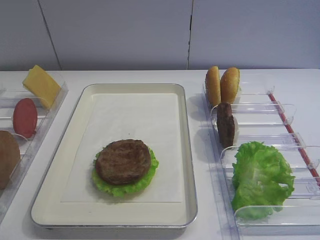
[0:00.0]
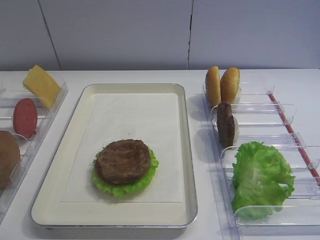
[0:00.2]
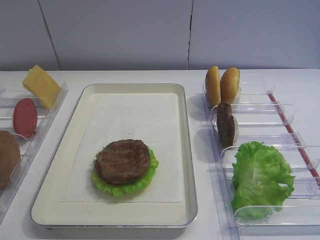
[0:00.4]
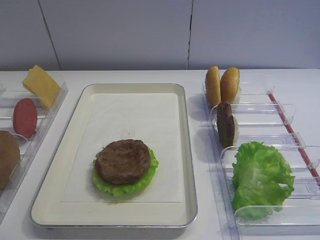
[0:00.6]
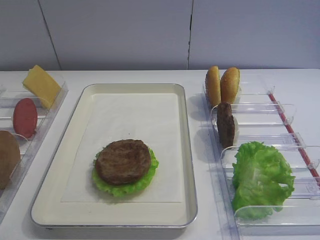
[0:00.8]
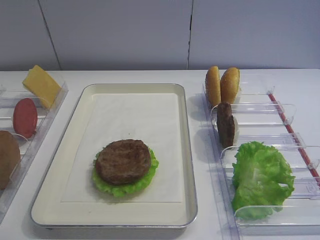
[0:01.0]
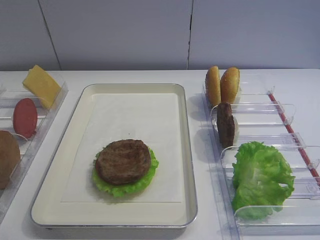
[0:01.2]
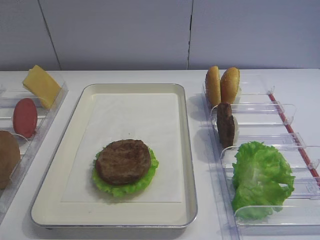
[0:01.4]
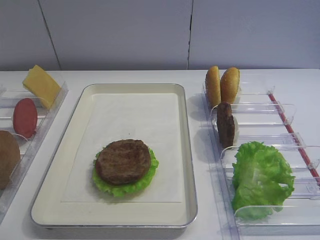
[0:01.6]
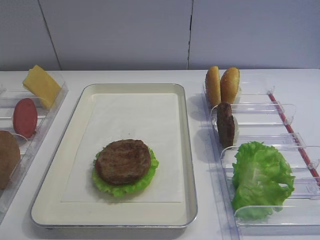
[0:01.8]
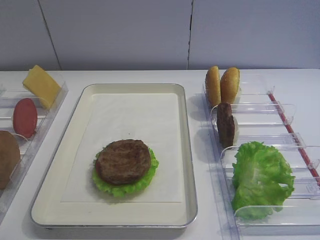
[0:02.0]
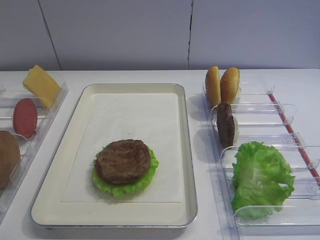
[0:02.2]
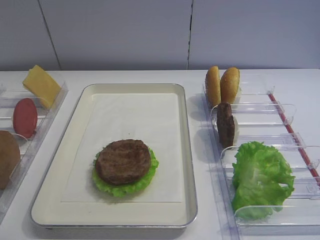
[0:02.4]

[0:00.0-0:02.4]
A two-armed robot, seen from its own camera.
1.2 to 2.4 s: Both grippers stay put.

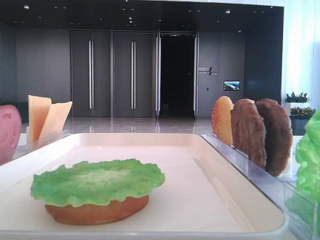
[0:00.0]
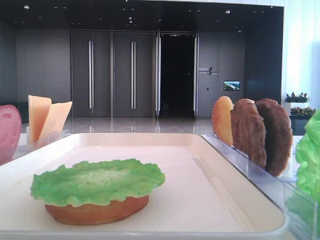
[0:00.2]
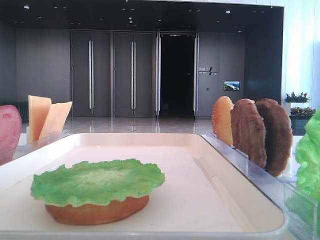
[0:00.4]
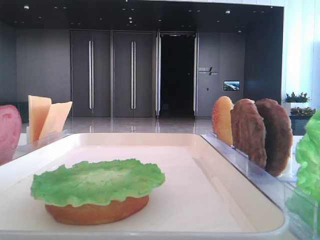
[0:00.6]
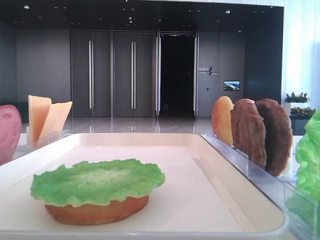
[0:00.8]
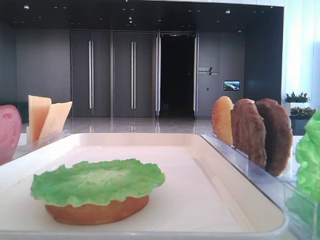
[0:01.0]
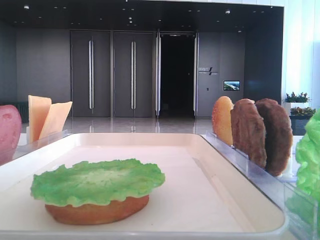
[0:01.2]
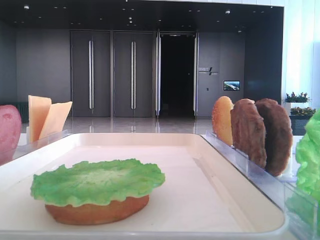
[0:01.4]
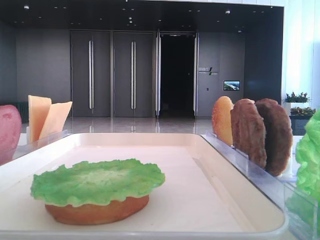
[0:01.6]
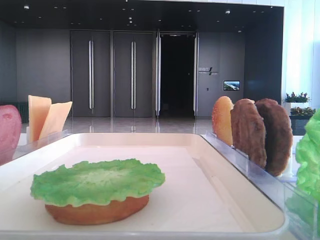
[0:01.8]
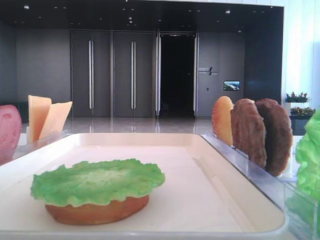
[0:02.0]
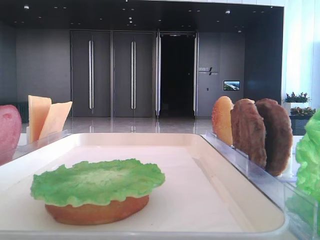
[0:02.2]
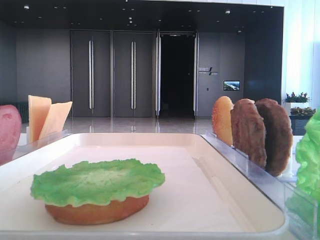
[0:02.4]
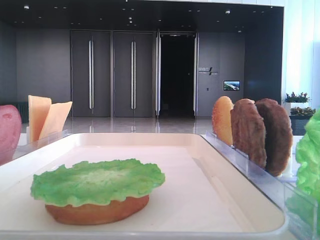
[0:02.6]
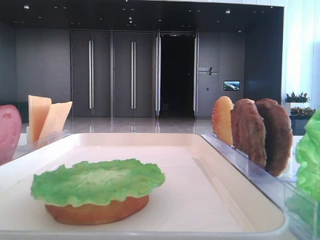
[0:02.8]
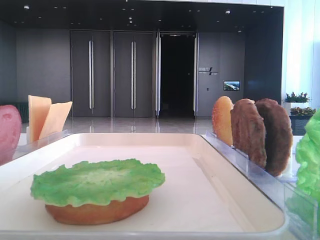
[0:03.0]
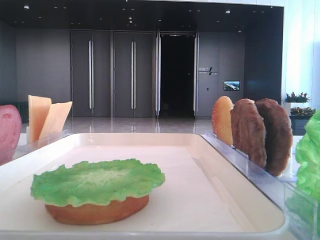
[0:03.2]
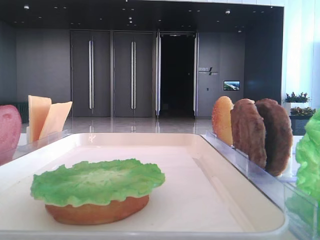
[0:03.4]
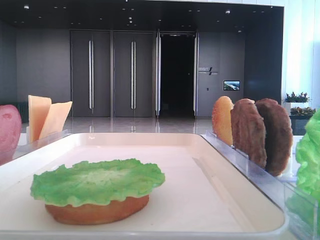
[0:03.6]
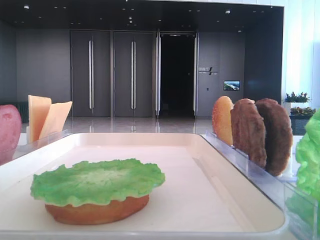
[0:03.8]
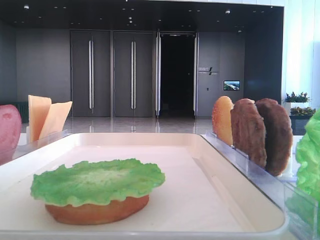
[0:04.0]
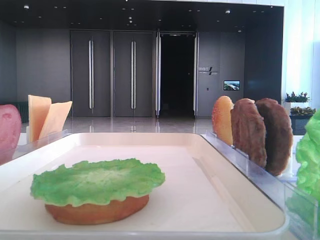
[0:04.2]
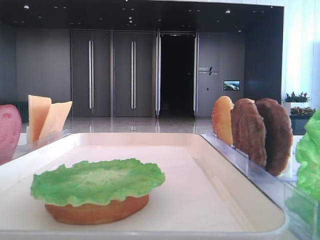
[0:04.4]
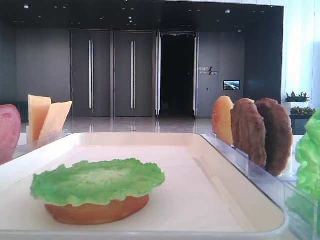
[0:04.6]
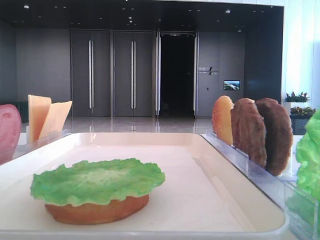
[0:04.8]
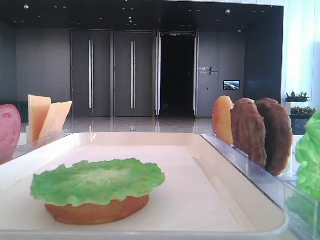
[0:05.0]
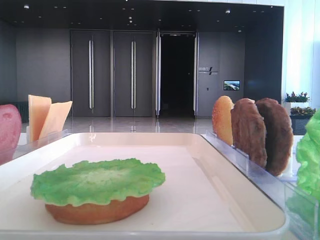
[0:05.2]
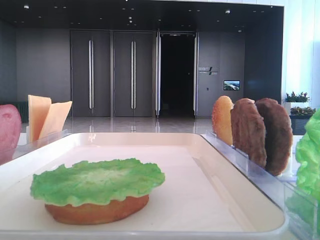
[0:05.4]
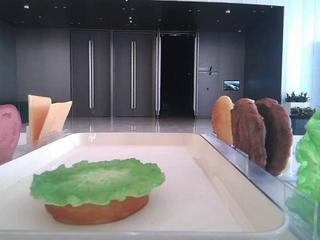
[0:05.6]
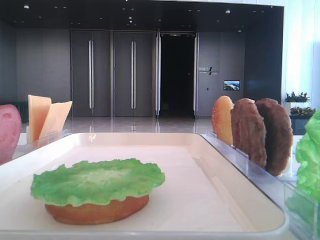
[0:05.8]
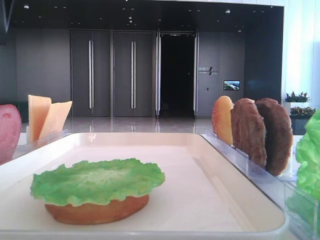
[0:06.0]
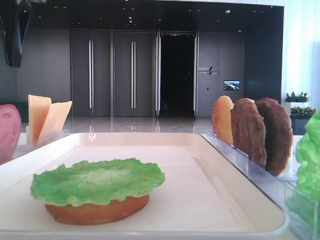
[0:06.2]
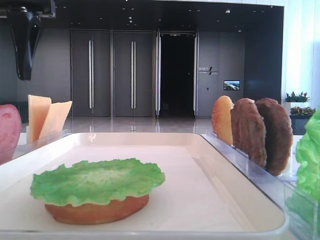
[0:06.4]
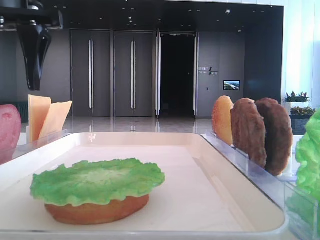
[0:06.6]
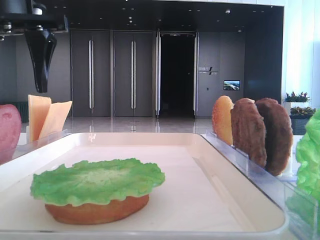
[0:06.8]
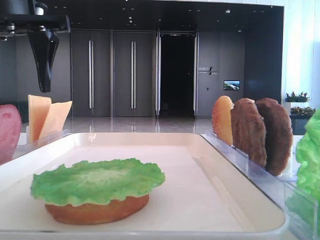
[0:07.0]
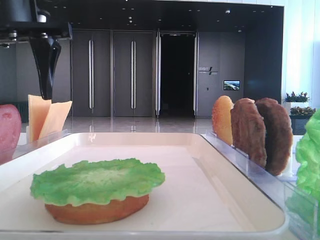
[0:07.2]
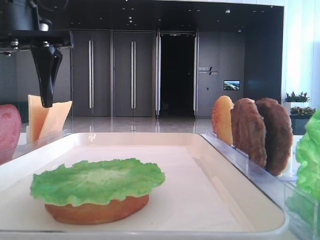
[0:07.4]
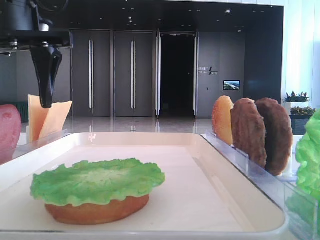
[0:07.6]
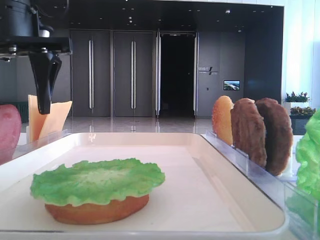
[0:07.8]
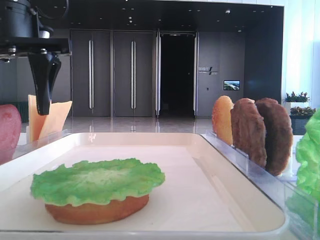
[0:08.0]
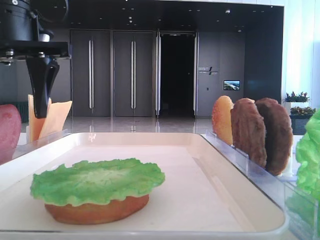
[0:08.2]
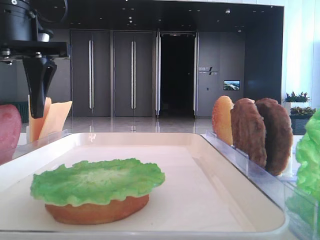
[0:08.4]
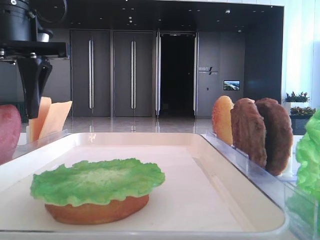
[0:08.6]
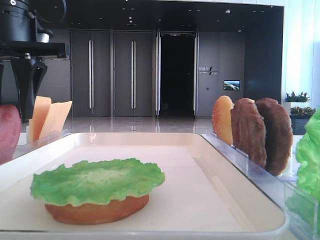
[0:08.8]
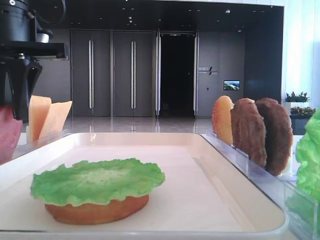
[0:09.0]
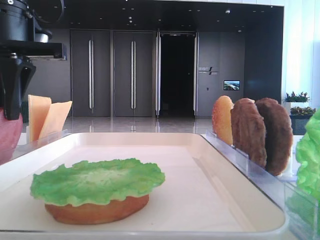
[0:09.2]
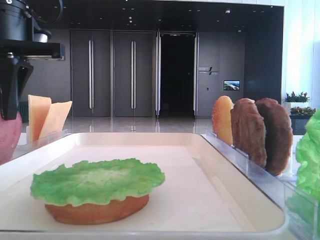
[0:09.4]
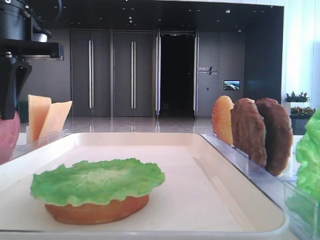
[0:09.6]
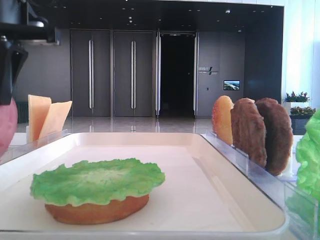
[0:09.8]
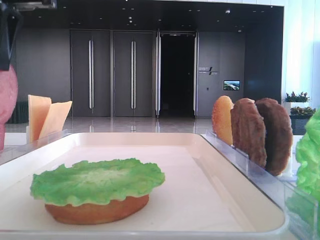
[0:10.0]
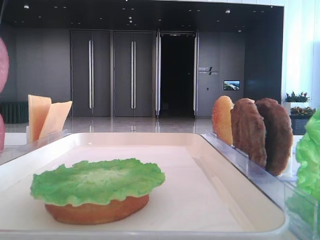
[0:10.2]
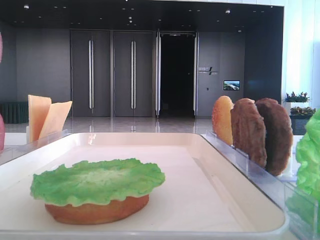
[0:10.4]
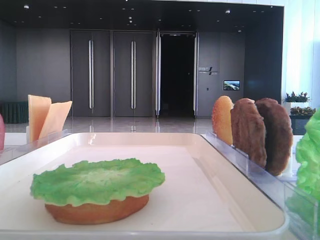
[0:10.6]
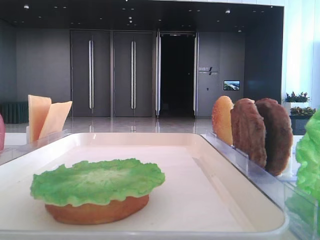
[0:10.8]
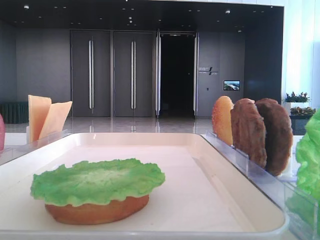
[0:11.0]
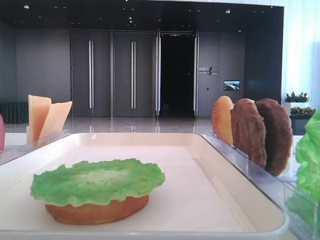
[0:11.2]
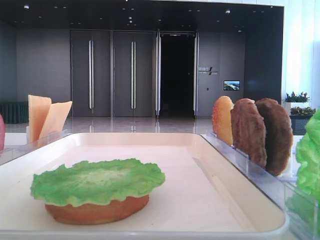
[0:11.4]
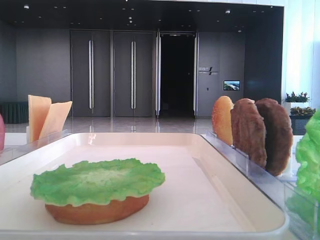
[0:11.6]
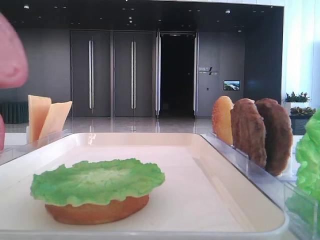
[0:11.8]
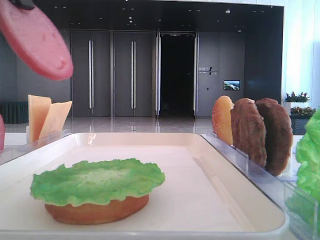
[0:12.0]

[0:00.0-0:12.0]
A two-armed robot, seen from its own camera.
Step, 0.0 to 9.4 s: Pick up the tomato slice with the left hand.
6.0 to 7.6 s: The left gripper shifts about 5 cm downward.
7.6 to 9.0 s: The left gripper closes.
9.0 to 10.4 s: The left gripper travels upward by roughly 10 cm.
10.4 to 12.0 s: The left gripper heads backward, covering roughly 5 cm.

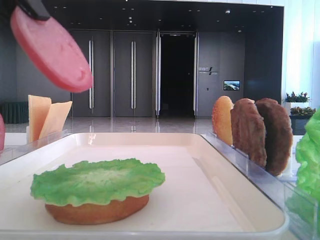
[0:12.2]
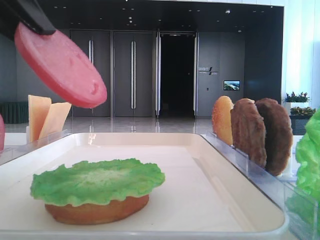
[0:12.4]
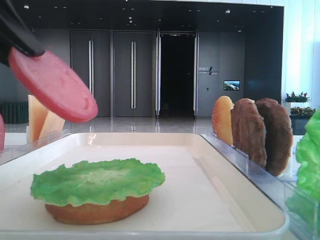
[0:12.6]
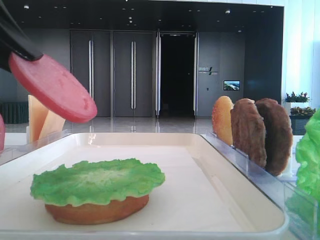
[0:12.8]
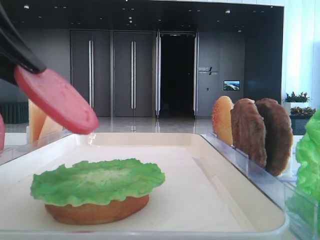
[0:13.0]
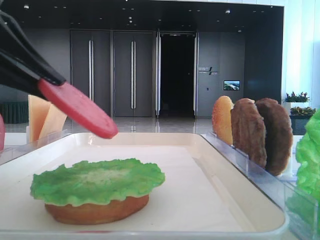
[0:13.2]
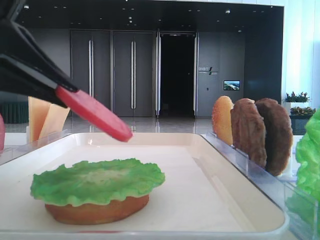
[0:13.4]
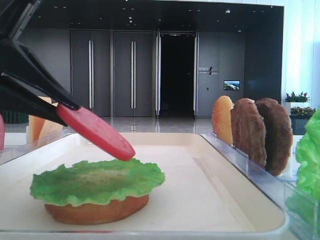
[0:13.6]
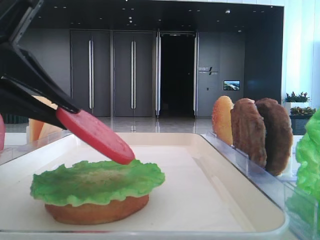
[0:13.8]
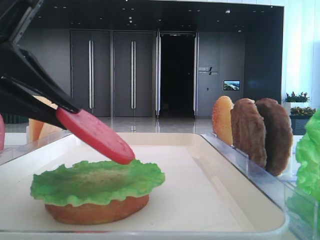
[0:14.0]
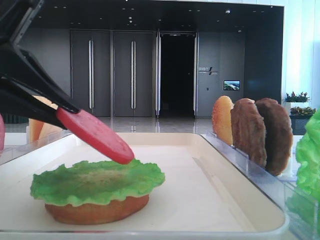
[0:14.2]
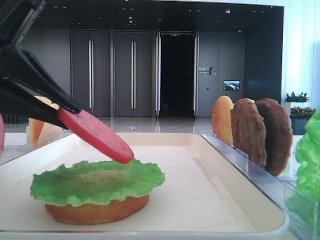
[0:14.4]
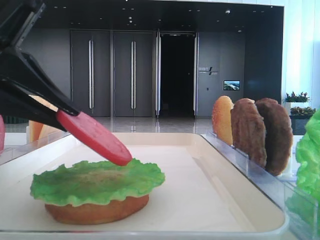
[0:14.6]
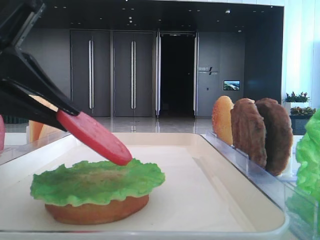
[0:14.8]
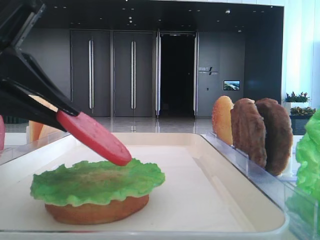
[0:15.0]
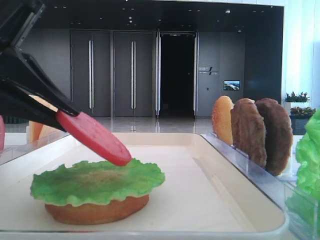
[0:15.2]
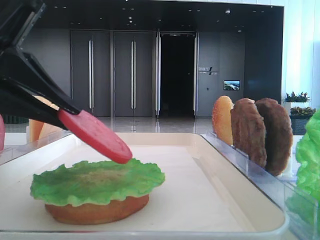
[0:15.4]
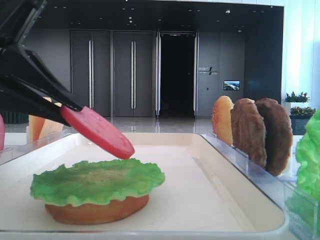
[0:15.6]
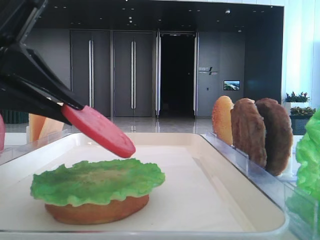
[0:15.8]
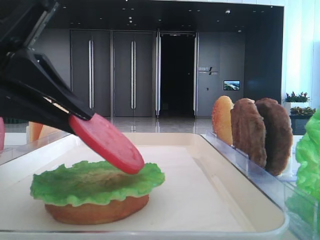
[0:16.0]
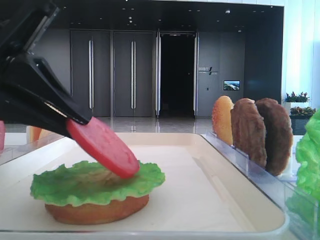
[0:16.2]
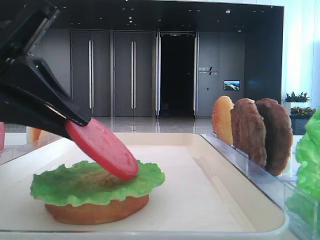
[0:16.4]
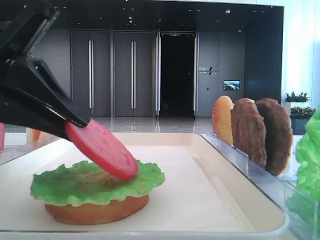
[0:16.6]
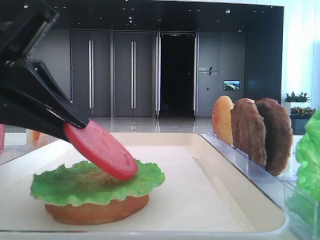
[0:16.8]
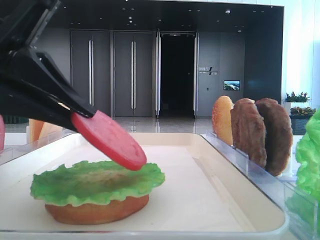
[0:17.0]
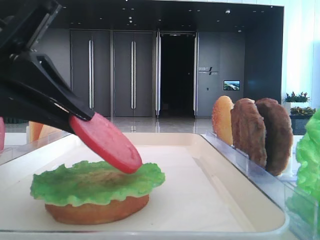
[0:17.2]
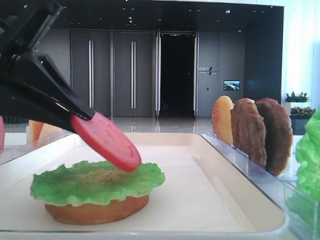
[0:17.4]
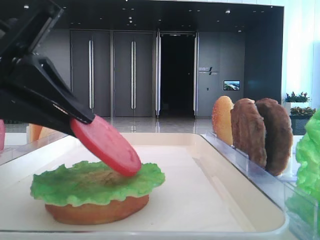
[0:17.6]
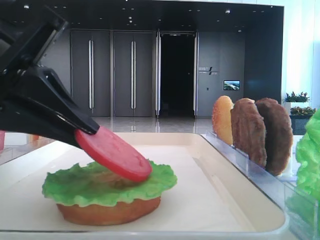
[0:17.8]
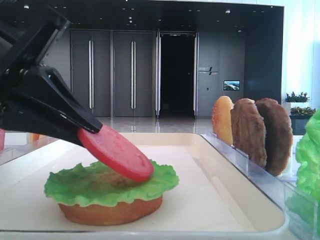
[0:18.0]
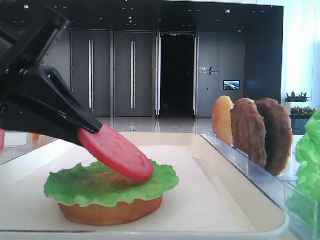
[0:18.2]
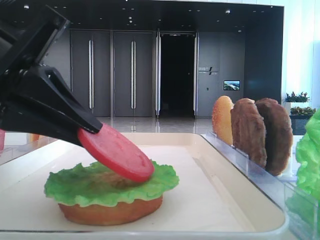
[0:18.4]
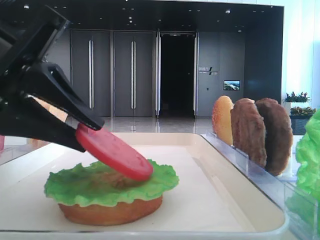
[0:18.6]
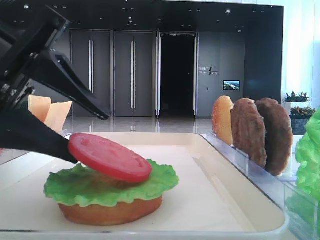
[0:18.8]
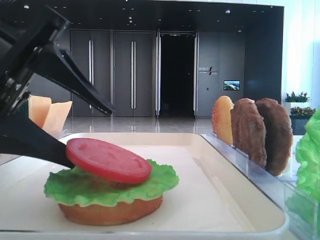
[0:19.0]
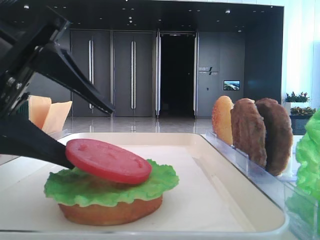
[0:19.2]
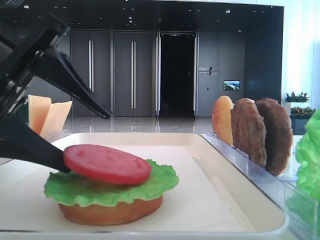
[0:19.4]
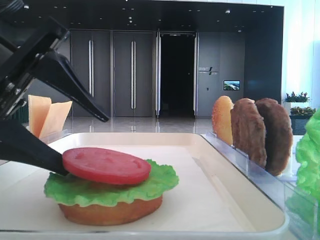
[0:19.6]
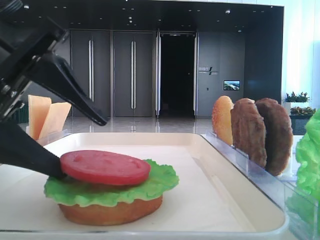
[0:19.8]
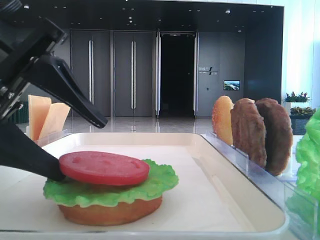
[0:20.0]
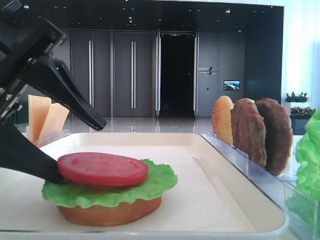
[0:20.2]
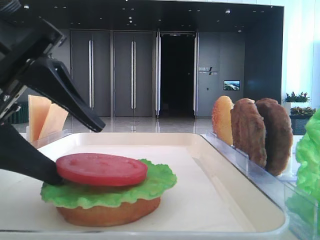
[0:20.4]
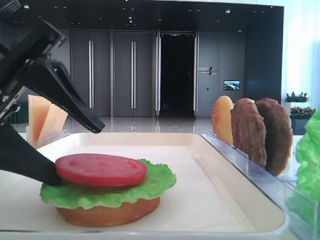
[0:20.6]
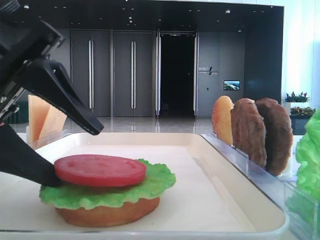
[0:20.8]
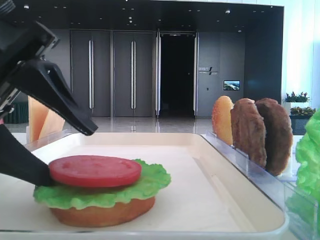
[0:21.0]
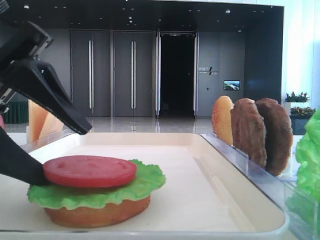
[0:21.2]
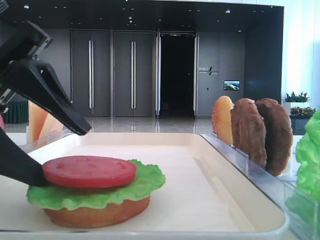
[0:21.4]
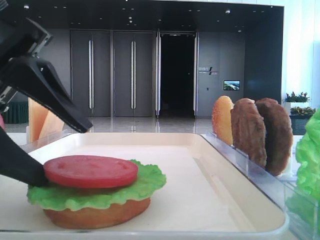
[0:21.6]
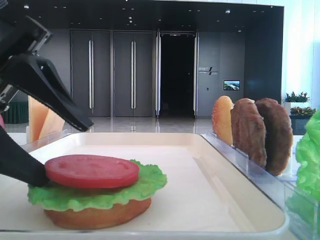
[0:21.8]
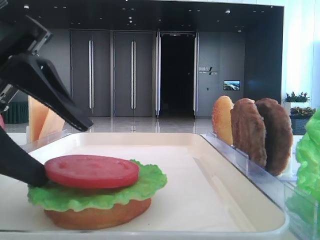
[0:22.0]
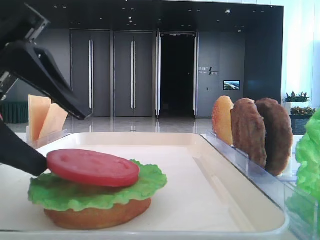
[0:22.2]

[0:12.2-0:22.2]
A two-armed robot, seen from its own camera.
Step, 12.2 to 22.2 s: Place the tomato slice on the lettuce leaf with the left hand.
12.2 to 13.6 s: The left gripper shifts about 10 cm downward.
13.6 to 15.0 s: Both grippers stay about where they are.
15.0 to 16.4 s: The grippers move only a little.
16.4 to 18.0 s: Neither gripper changes place.
18.0 to 19.4 s: The left gripper opens.
19.4 to 20.8 s: The grippers make only small movements.
20.8 to 22.2 s: Both grippers stay put.
